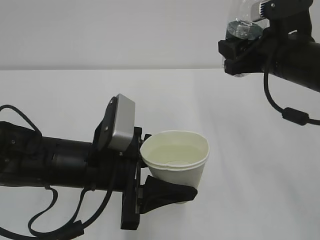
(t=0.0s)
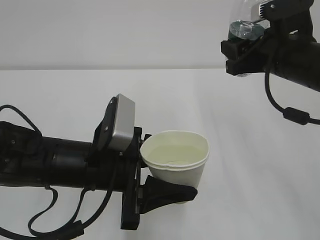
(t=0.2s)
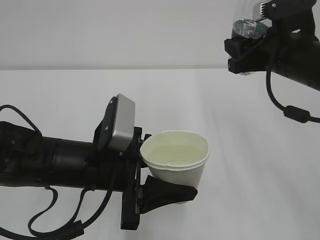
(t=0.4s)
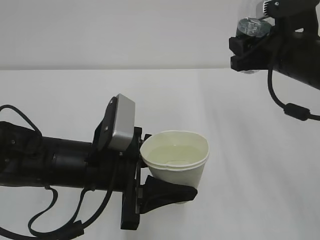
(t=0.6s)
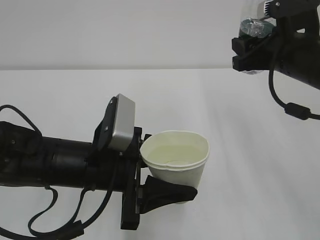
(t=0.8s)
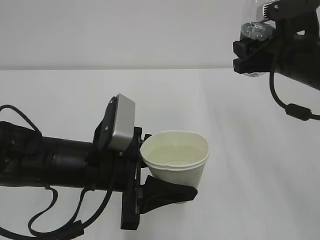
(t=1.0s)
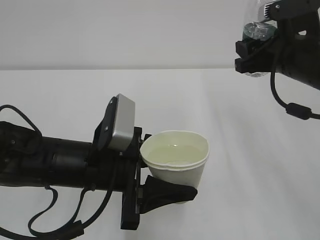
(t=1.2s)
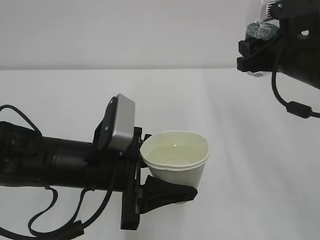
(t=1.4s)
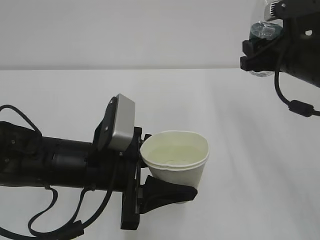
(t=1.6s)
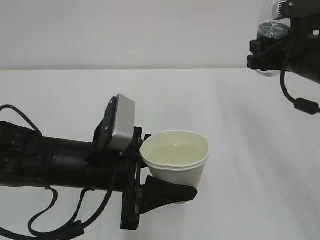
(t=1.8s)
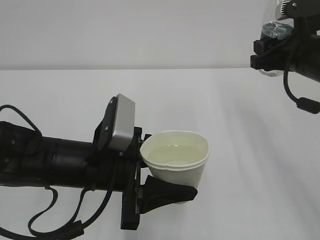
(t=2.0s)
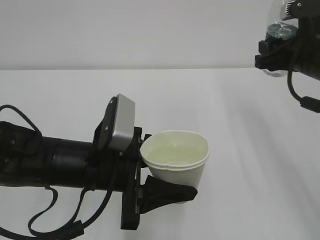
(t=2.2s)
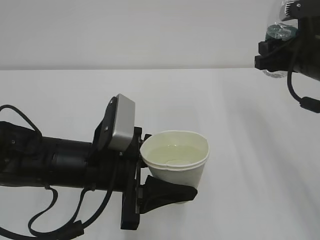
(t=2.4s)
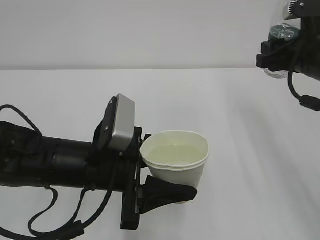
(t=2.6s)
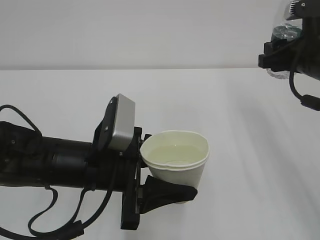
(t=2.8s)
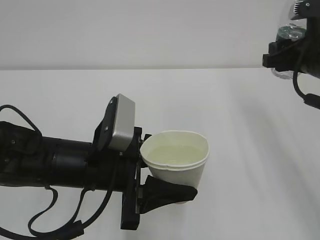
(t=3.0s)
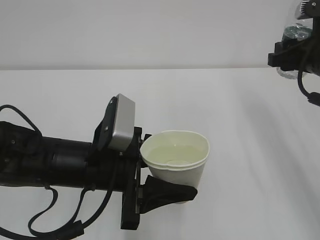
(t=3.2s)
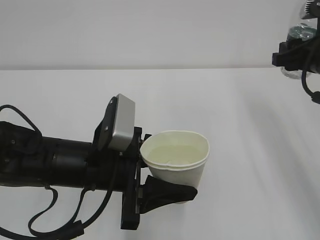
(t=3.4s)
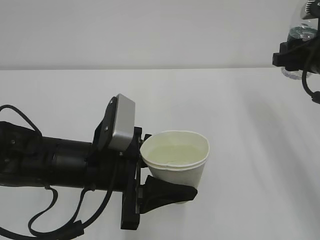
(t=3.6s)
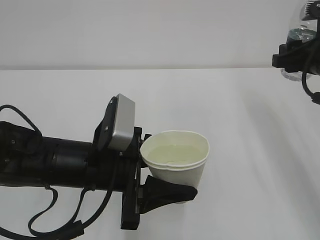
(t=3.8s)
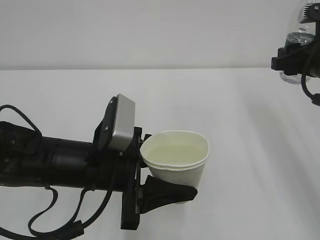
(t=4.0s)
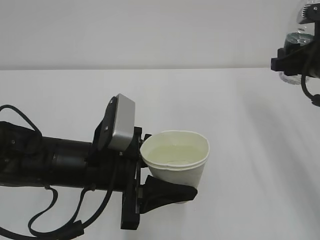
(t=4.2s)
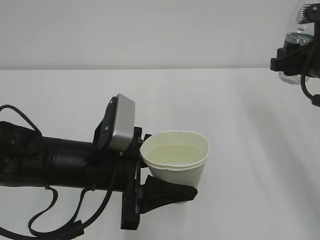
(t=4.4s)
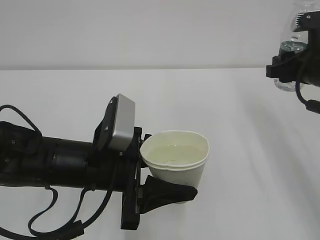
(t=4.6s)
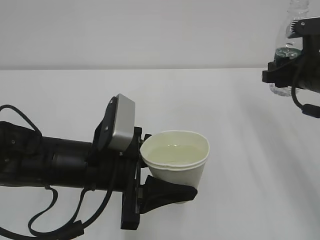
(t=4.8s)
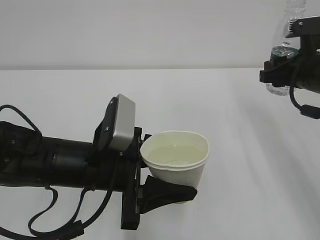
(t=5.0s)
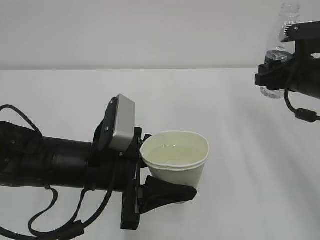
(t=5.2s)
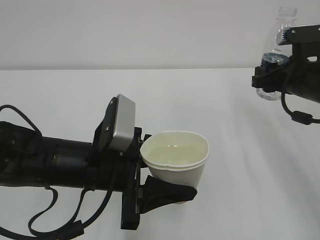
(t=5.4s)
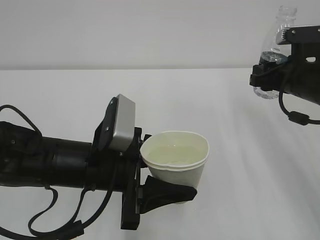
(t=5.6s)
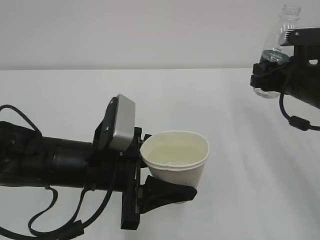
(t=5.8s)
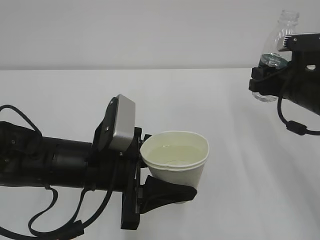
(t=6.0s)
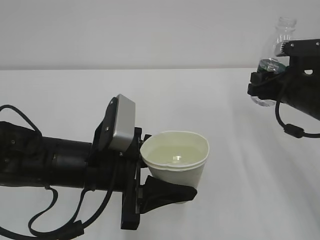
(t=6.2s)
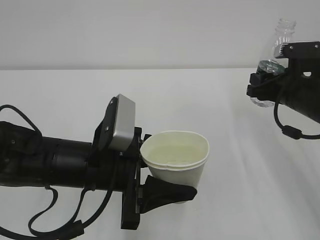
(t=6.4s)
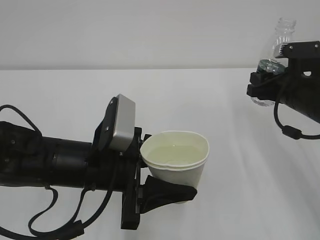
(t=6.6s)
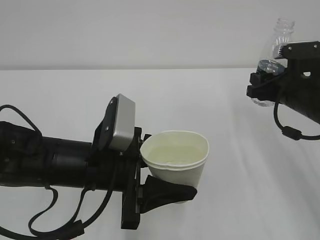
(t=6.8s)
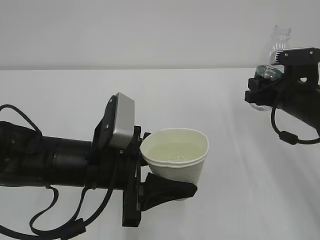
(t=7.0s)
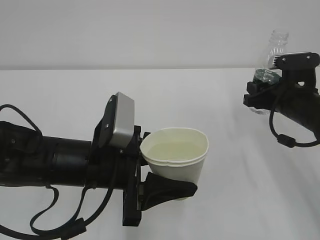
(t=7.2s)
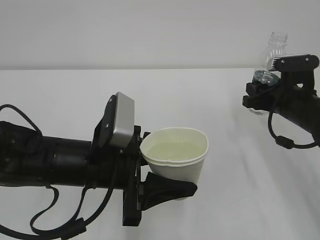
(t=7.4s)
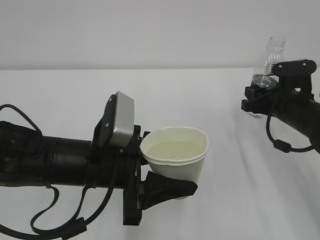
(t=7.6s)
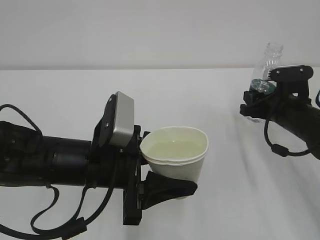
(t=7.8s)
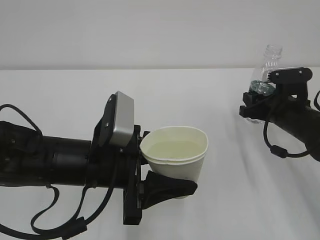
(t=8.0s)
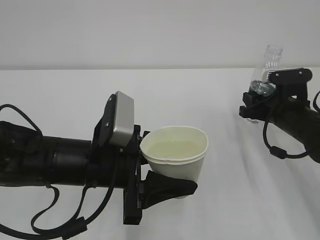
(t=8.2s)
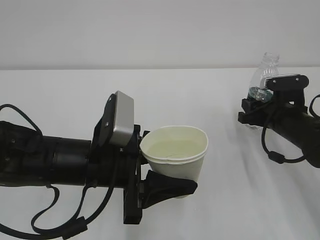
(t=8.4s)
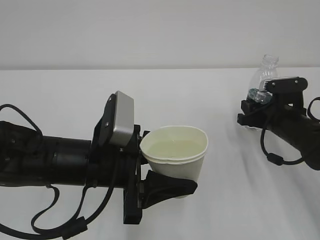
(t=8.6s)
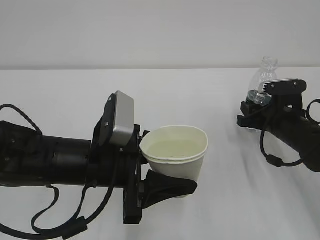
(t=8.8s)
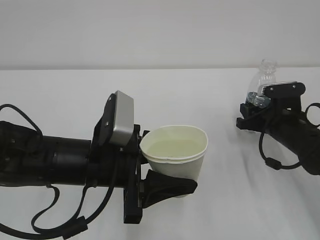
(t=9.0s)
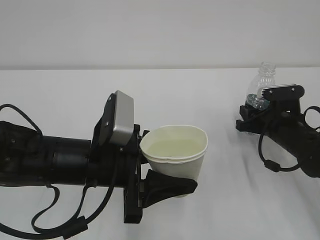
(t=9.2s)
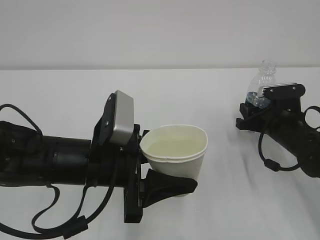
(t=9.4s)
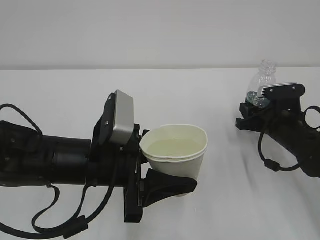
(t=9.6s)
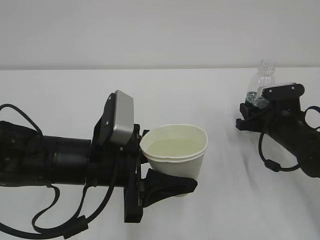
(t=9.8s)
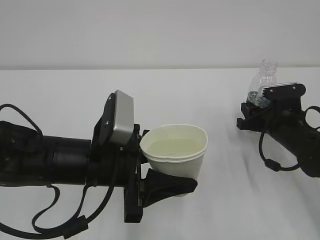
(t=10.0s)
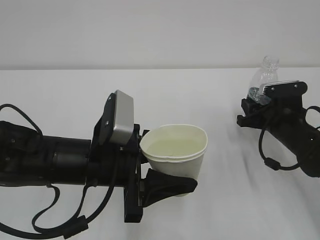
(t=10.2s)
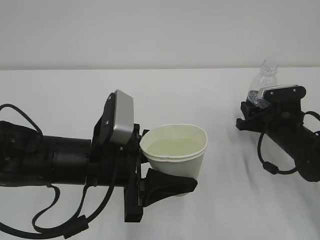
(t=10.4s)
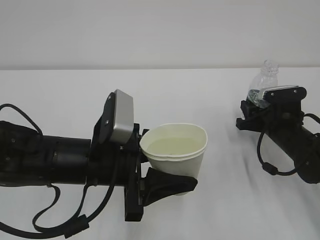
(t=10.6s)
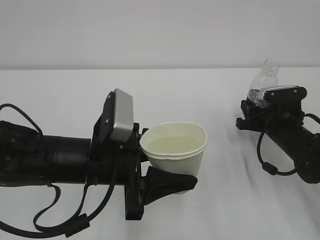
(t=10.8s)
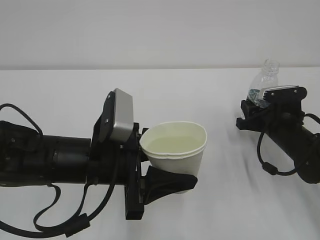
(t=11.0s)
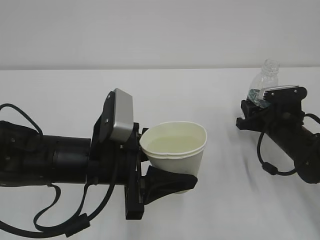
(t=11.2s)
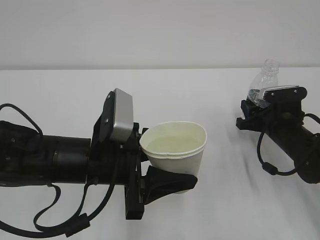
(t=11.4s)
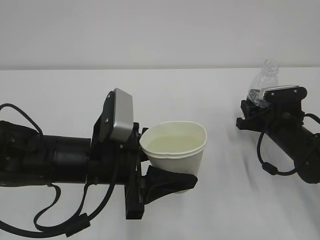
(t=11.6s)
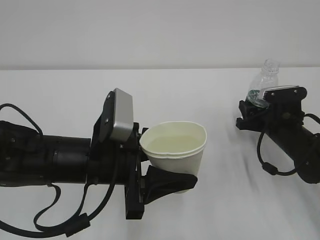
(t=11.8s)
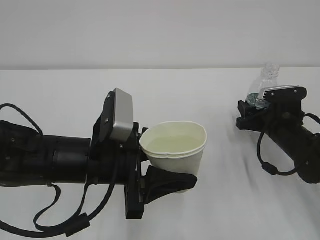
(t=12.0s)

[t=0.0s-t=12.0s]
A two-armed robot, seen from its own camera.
t=0.0s to t=1.6s: There are only small adjustments of the grippers.
t=1.6s to t=4.4s: The grippers stay close to where they were, moving slightly.
t=4.4s to t=6.0s: The right gripper goes roughly 5 cm downward.
t=6.0s to t=7.6s: The right gripper goes approximately 5 cm downward.
t=7.6s to t=10.4s: There are only small adjustments of the grippers.
t=10.4s to t=12.0s: The right gripper opens.

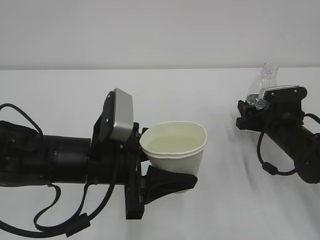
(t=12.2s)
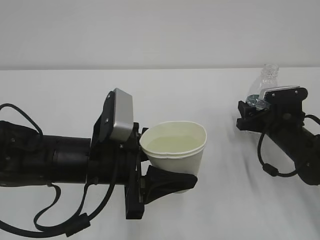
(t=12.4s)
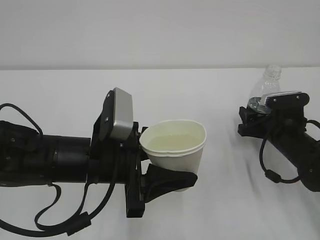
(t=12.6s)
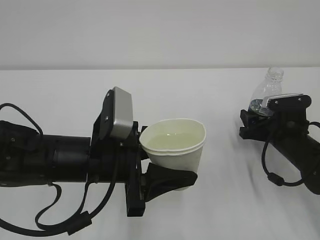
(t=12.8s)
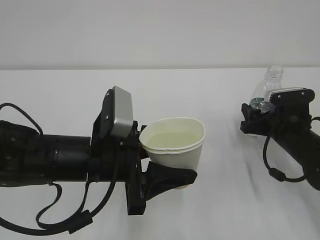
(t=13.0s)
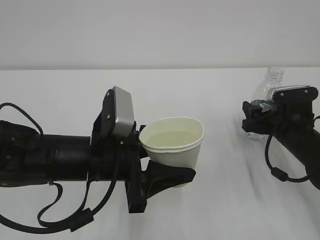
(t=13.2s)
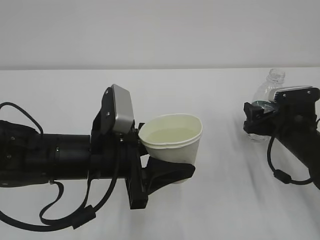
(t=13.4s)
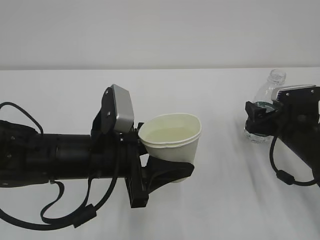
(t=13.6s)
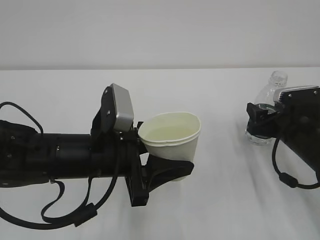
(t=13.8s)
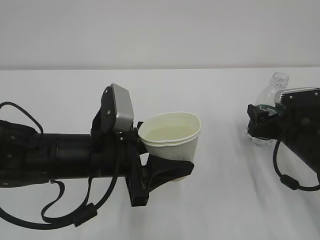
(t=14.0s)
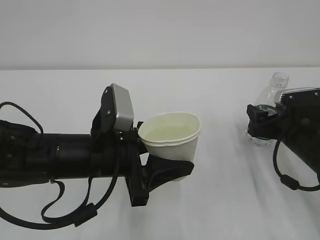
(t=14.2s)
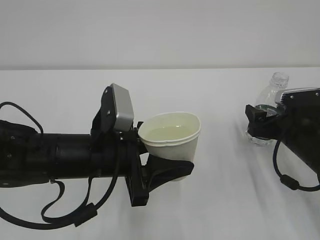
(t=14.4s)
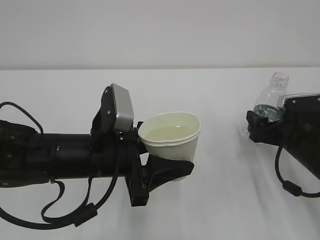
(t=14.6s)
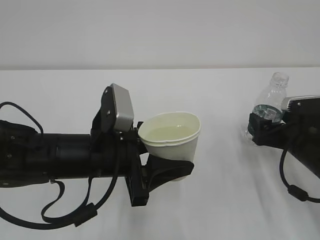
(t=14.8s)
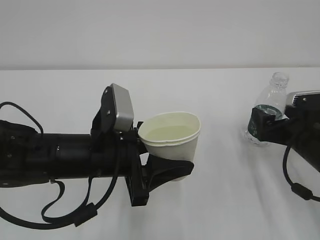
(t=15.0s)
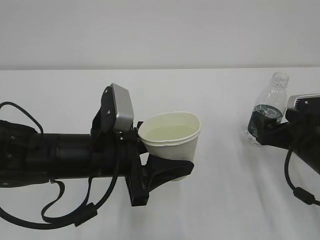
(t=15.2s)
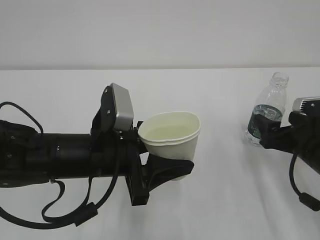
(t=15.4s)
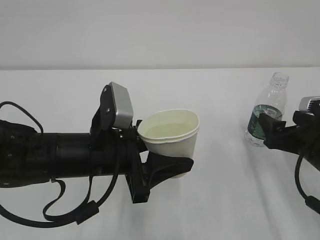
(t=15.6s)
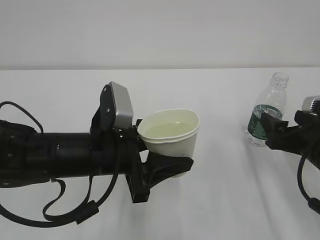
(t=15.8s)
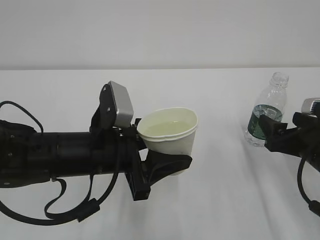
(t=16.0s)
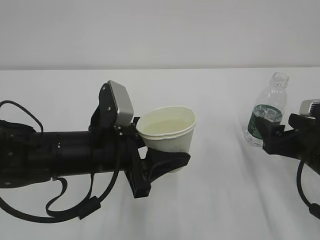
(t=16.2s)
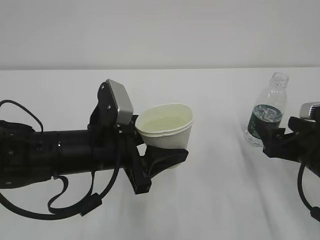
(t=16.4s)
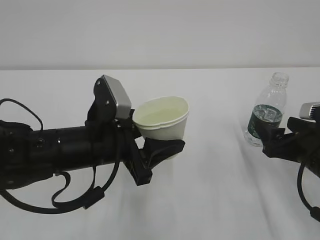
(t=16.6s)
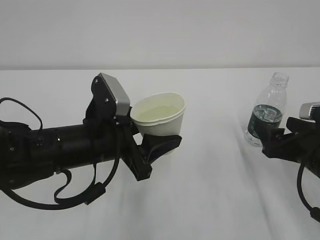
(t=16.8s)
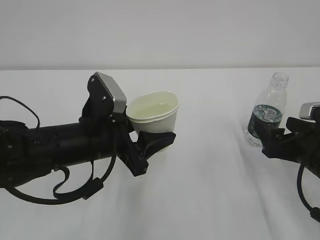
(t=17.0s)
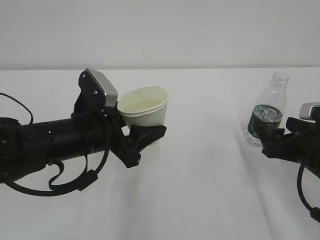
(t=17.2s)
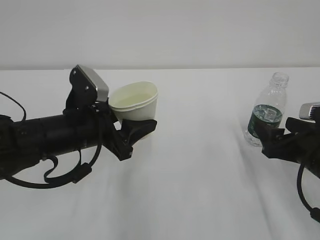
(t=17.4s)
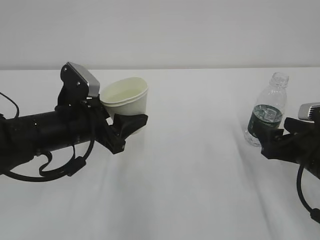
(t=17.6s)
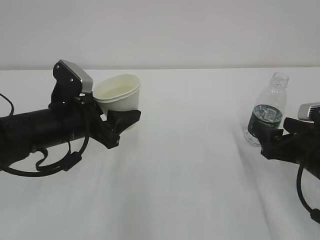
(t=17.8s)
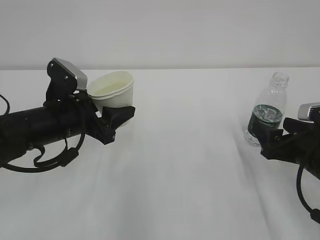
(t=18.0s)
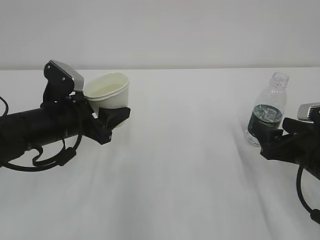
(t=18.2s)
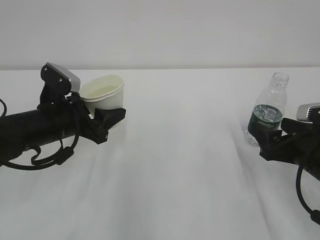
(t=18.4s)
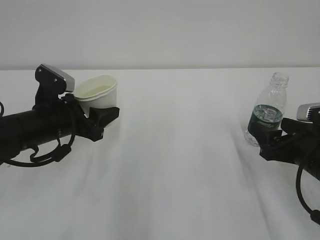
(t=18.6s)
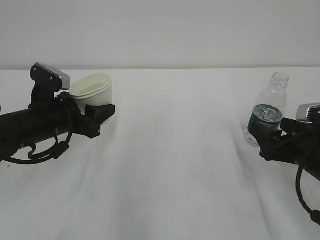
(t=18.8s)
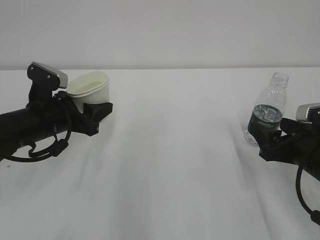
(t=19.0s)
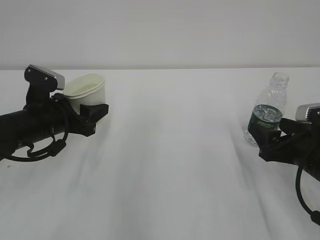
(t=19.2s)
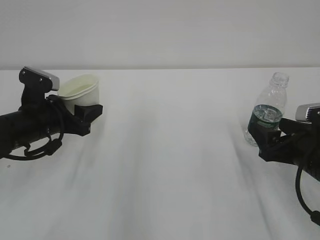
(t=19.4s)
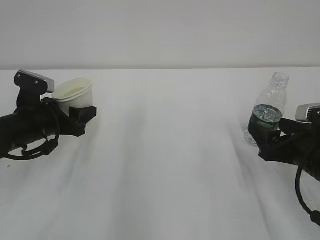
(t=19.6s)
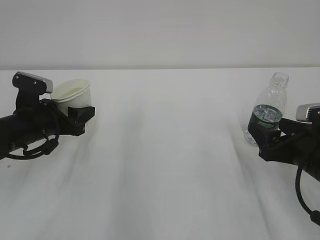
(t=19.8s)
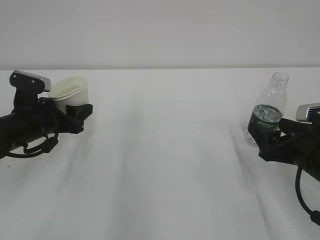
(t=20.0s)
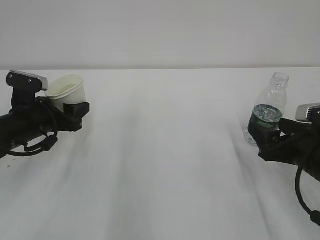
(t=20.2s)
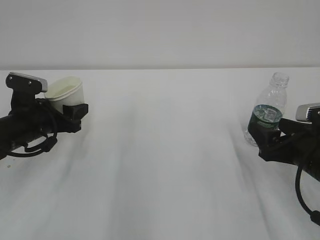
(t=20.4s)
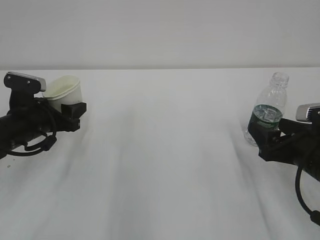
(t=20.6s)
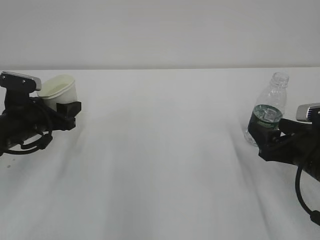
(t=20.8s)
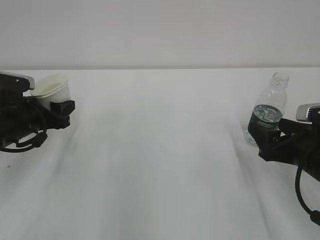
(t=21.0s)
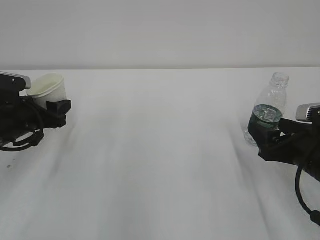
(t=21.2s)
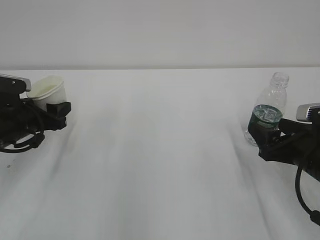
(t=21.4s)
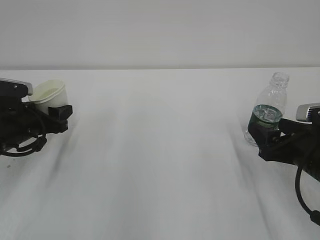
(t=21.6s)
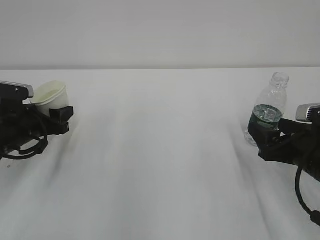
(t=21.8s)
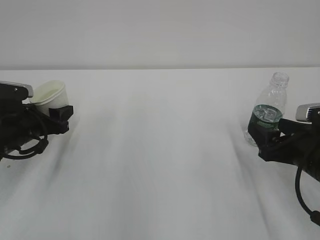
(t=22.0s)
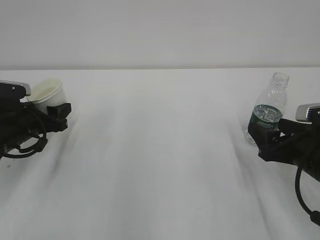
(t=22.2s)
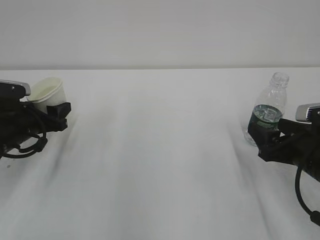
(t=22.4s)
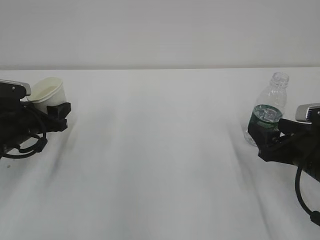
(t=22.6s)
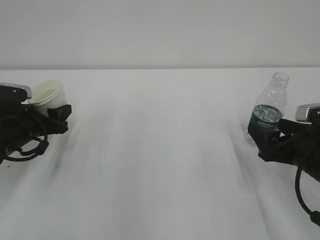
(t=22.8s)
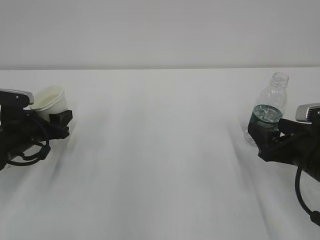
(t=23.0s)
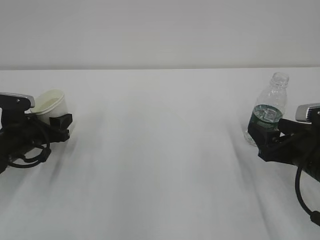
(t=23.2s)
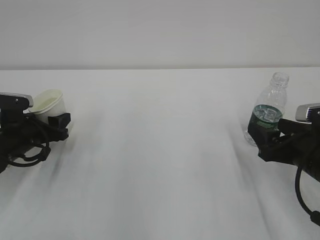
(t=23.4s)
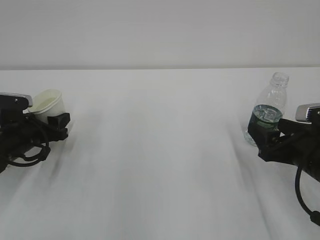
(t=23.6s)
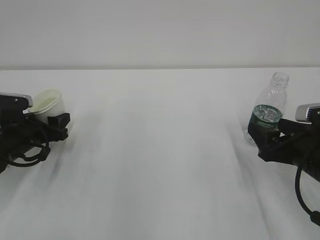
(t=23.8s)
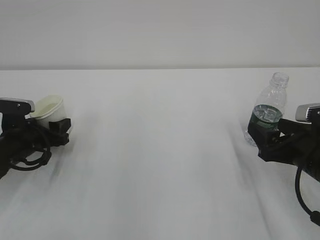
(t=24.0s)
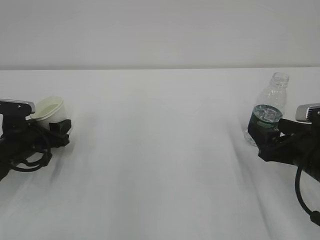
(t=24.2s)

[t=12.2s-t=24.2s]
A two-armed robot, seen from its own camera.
t=12.2s to t=13.8s: The grippers move only a little.
t=13.8s to t=15.2s: The grippers stay close to where they were, moving slightly.
t=15.2s to t=16.6s: The grippers move only a little.
t=16.6s to t=18.2s: The left gripper goes approximately 10 cm to the left and forward.
t=18.2s to t=19.8s: The left gripper goes roughly 5 cm to the left.
t=19.8s to t=22.6s: The grippers make only small movements.
t=22.6s to t=24.2s: There are only small adjustments of the grippers.
